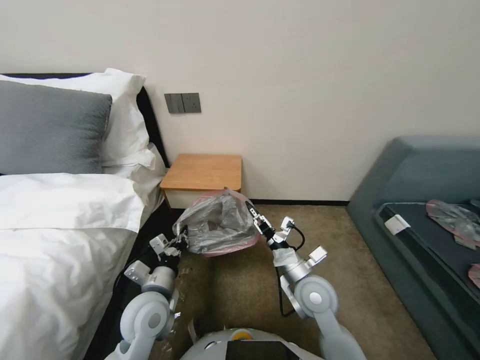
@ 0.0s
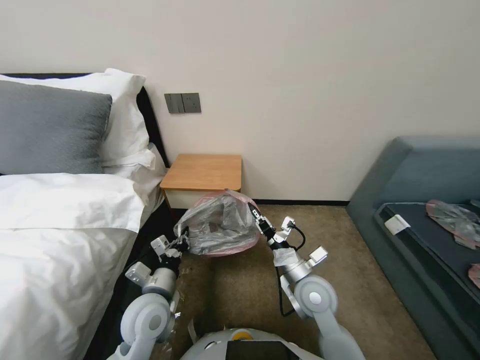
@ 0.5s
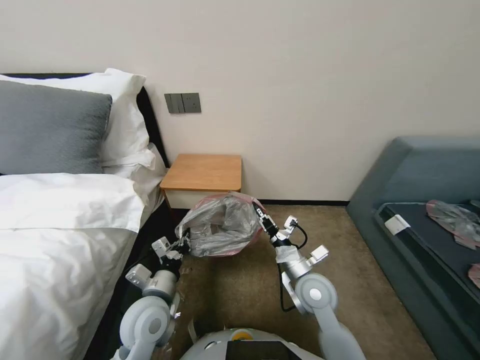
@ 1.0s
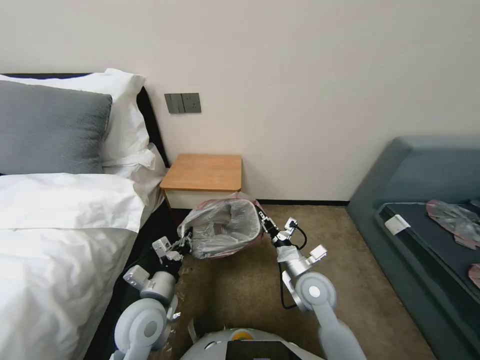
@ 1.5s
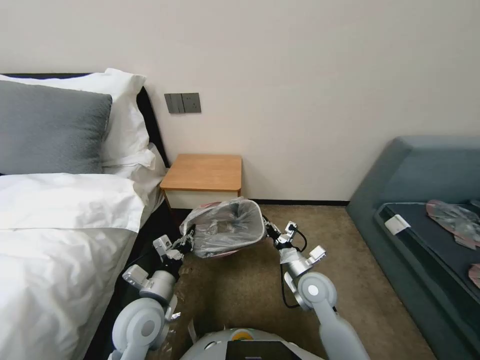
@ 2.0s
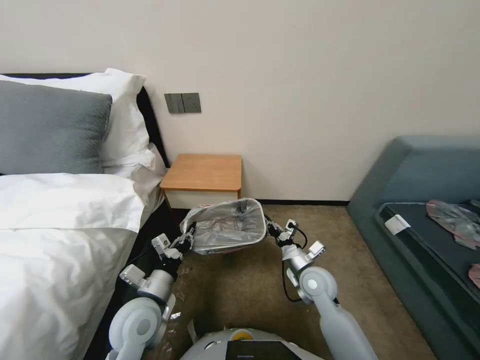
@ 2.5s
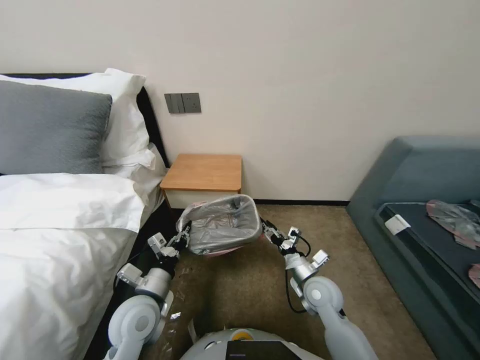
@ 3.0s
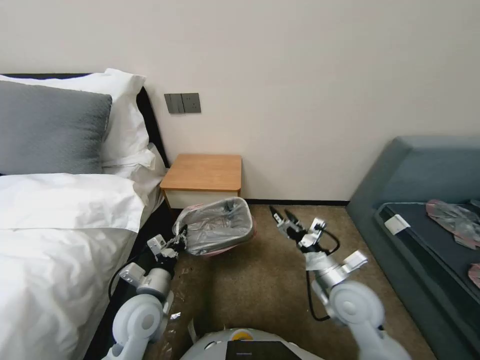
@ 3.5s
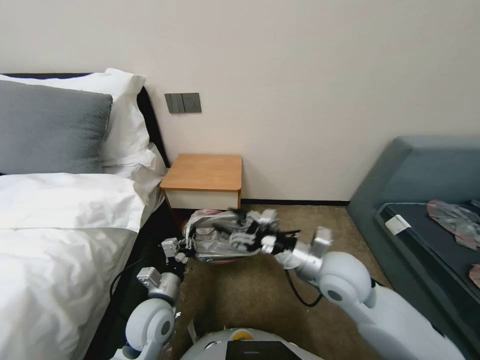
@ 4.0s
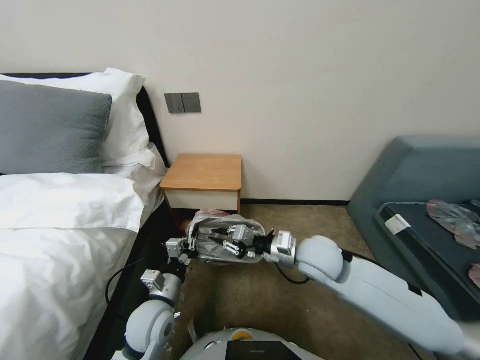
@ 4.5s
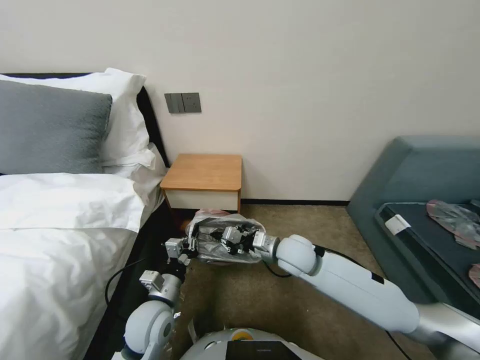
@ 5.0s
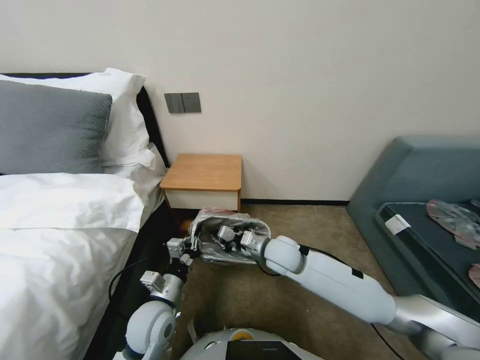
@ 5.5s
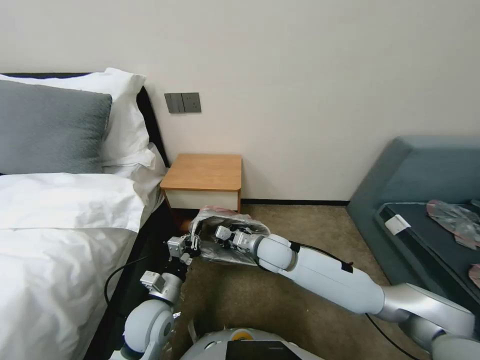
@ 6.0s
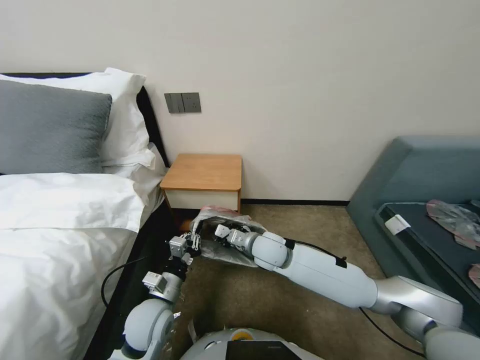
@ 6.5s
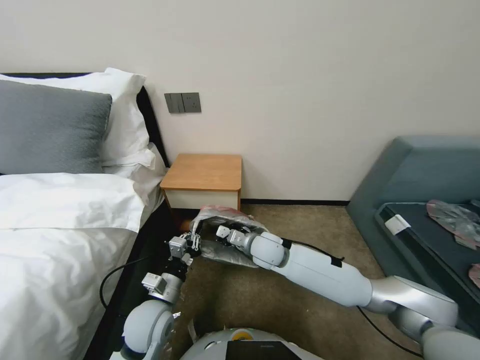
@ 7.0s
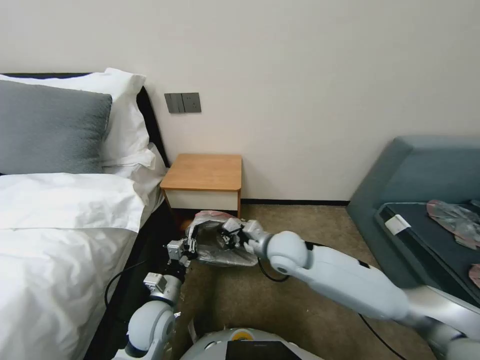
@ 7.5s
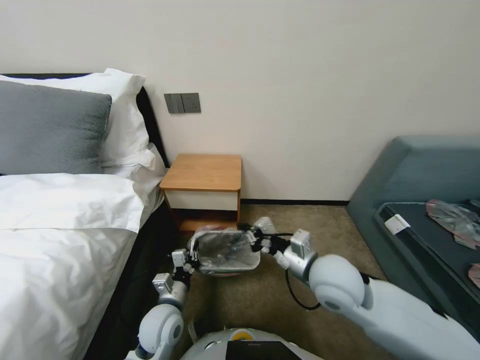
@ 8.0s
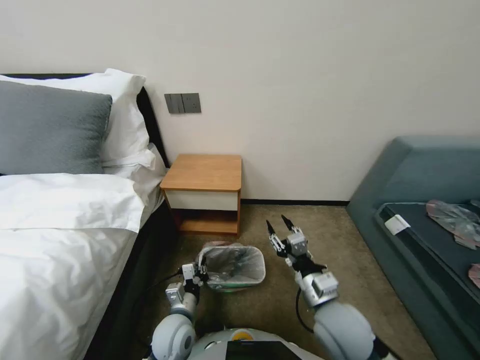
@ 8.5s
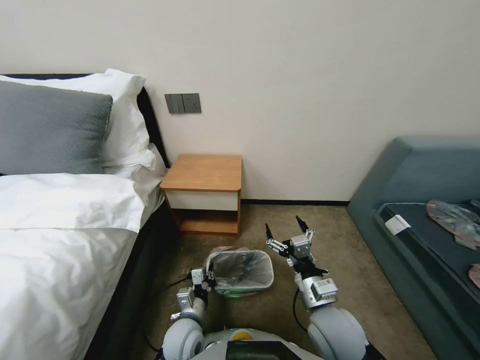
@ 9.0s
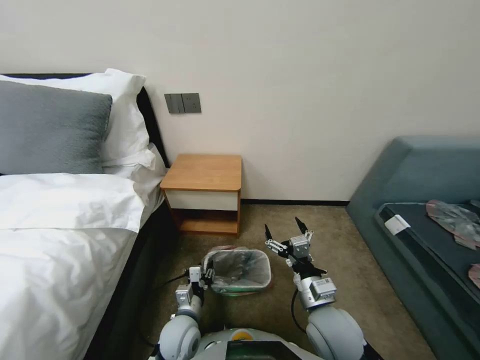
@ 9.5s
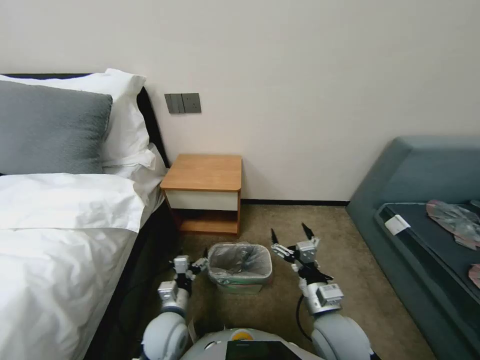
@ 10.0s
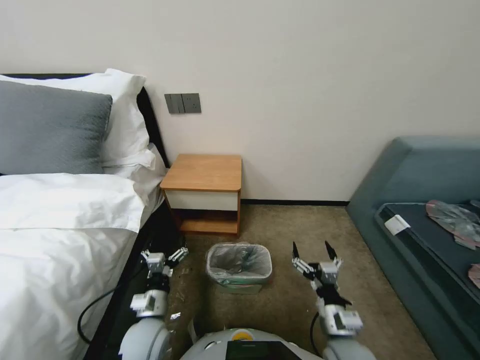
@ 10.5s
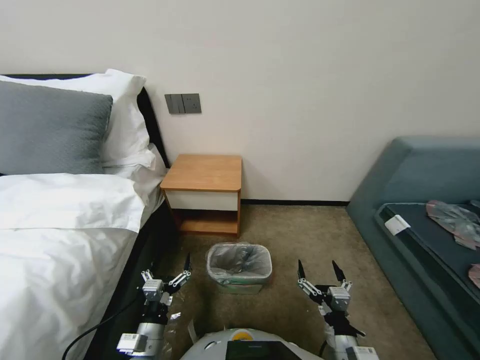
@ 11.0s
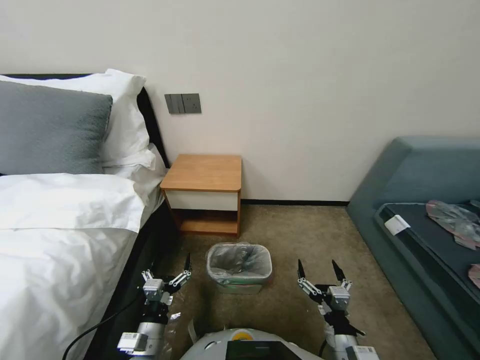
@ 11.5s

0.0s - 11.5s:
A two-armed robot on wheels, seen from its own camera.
Task of the whole recording: Pick up the garbage bag from the table and place it over the trash can.
0.0s - 2.0s: The right gripper changes place by approximately 5 cm, and closes its fingers.
2.0s - 4.0s: The right gripper is displaced upward by about 15 cm, and opens up.
4.0s - 6.0s: The right gripper heads to the left, forward and downward, covering roughly 15 cm, and closes its fingers.
6.0s - 7.5s: The grippers stay close to where they were, moving slightly.
7.5s - 9.5s: The right gripper is displaced backward and to the right by roughly 20 cm, and opens its fingers. The left gripper moves downward and to the right, approximately 10 cm.
9.5s - 11.5s: The left gripper travels backward and to the left by some 10 cm, and opens. Meanwhile the right gripper shifts some 10 cm backward and downward.

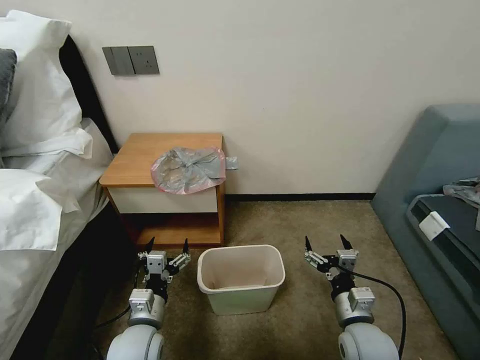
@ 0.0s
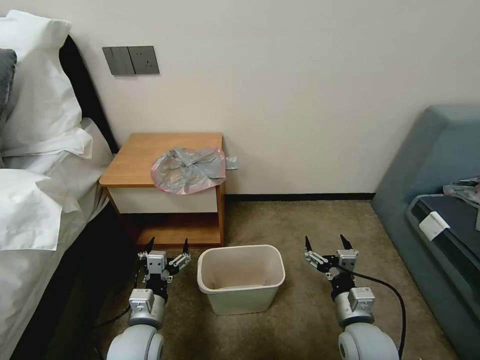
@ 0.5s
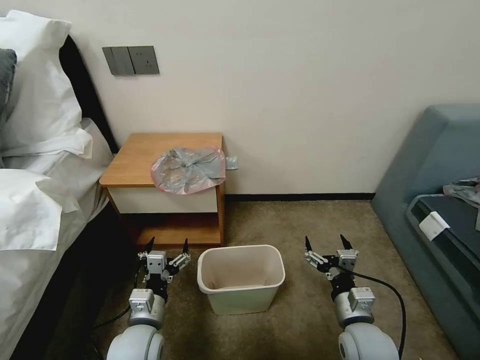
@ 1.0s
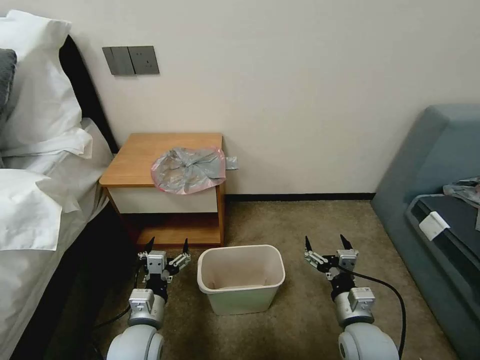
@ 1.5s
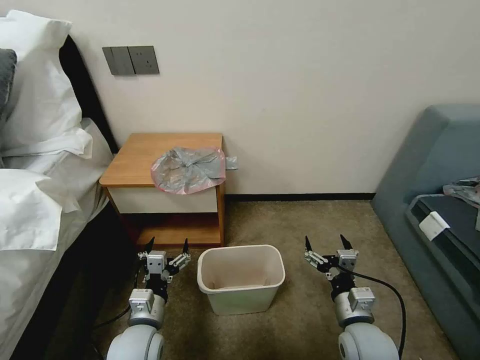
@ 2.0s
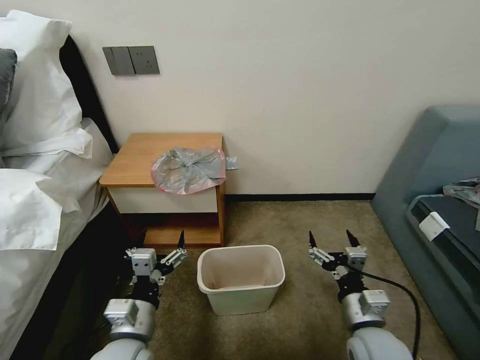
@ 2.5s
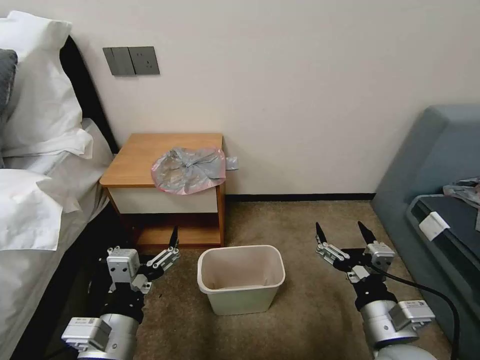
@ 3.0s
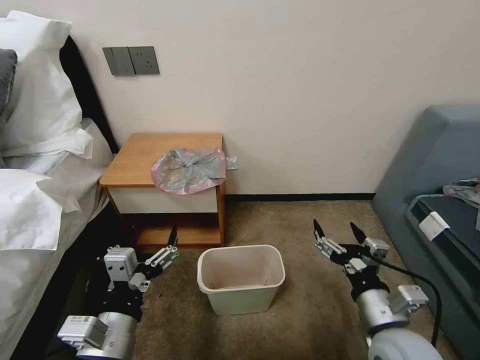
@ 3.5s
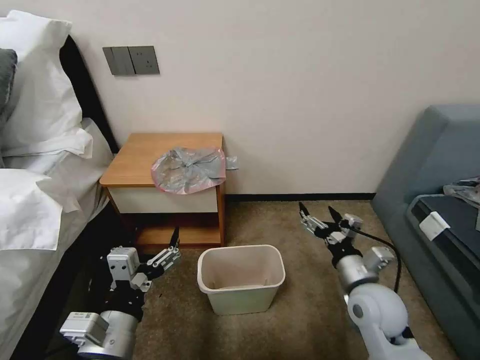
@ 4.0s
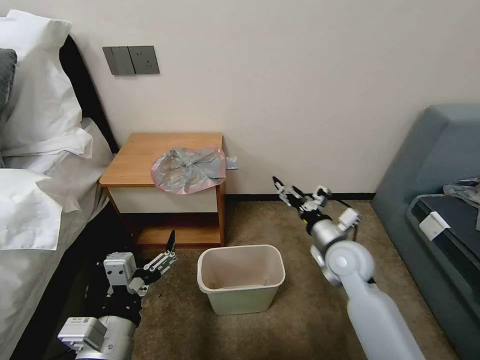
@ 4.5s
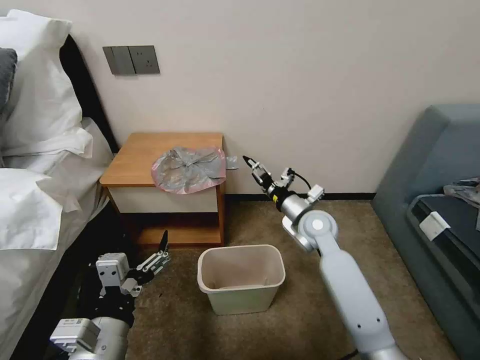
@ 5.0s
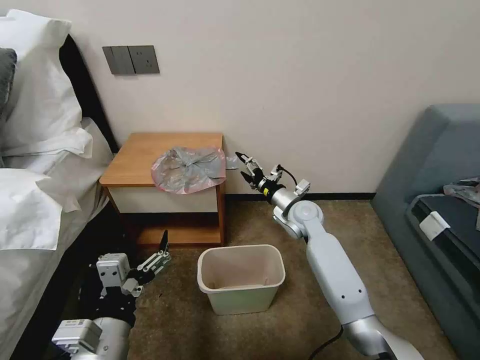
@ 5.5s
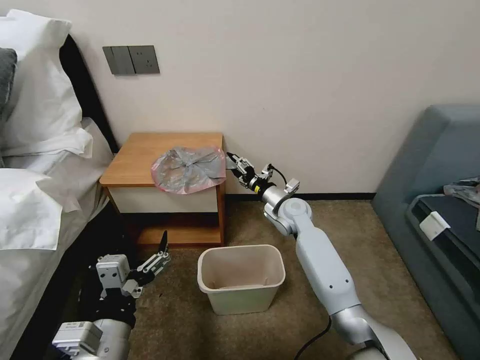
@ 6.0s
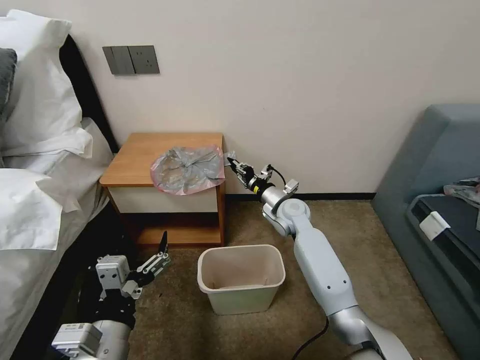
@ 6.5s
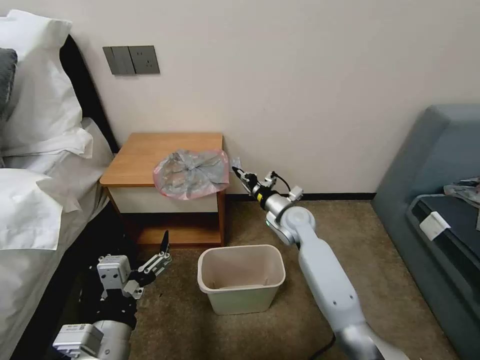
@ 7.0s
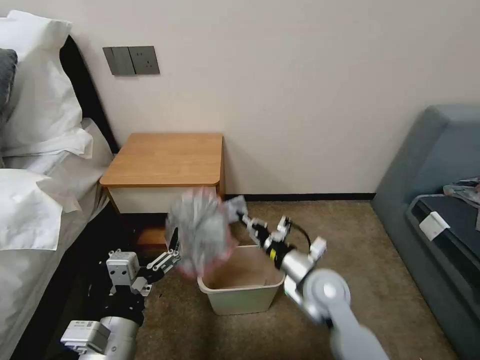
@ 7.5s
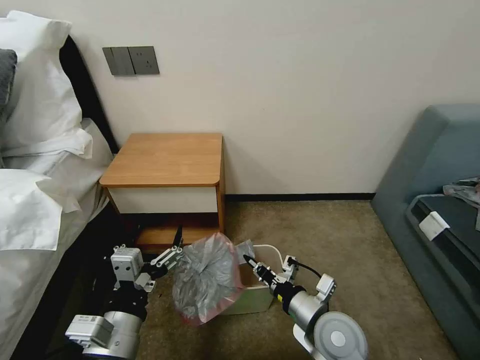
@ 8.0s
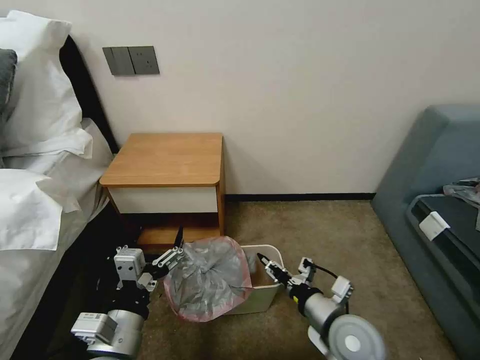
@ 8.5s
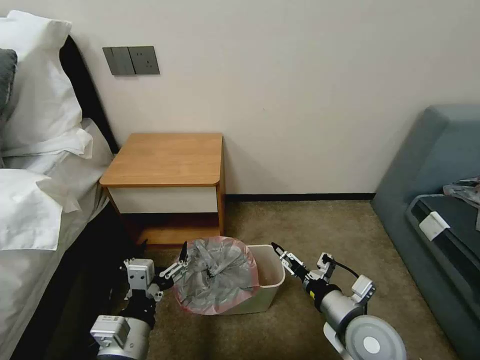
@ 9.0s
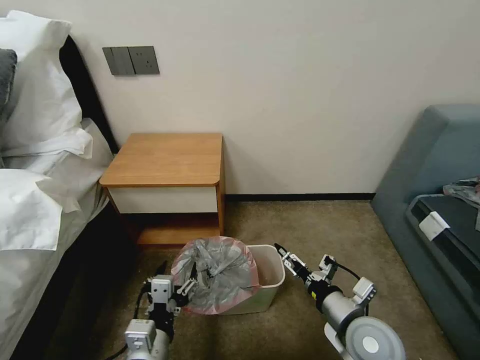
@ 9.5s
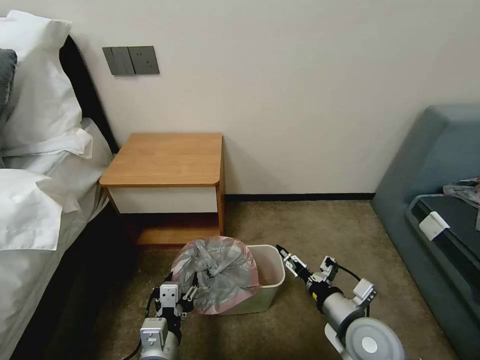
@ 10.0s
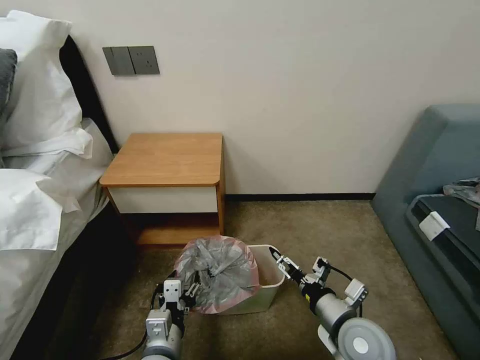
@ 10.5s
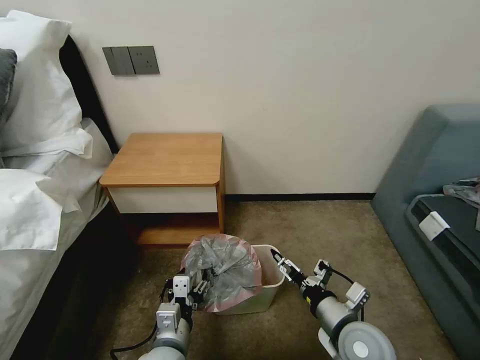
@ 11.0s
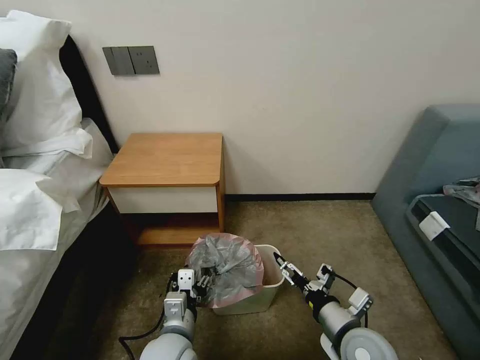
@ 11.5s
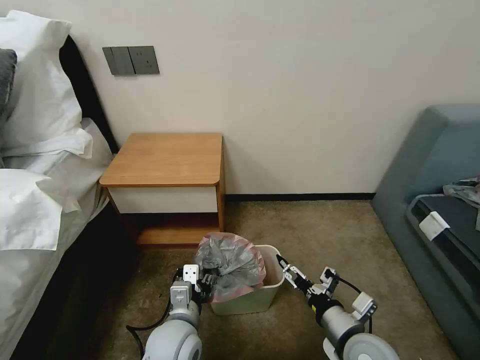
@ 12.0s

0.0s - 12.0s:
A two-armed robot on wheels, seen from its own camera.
Task of the whole recording: Pick up the garbage bag from the table and place it over the trash can.
2.0s - 4.0s: The right gripper goes roughly 10 cm upward and forward, while the left gripper heads upward and backward, covering approximately 15 cm.
4.0s - 6.0s: The right gripper goes some 25 cm forward and to the left.
6.0s - 8.0s: The right gripper is displaced backward by approximately 30 cm, and closes.
8.0s - 10.0s: The right gripper heads to the right, covering about 5 cm, and opens its fingers. The left gripper travels downward by about 10 cm.
10.0s - 12.0s: The left gripper heads forward, covering about 5 cm.

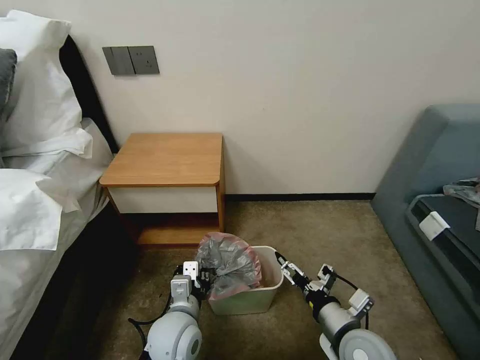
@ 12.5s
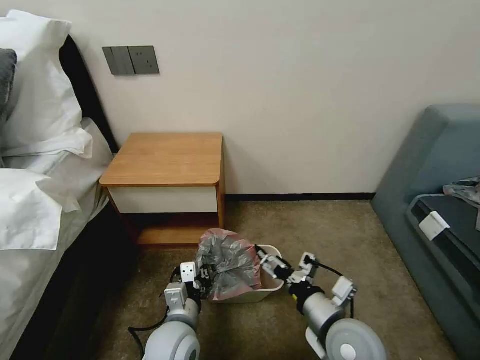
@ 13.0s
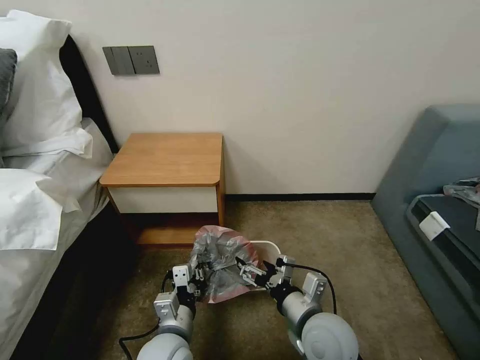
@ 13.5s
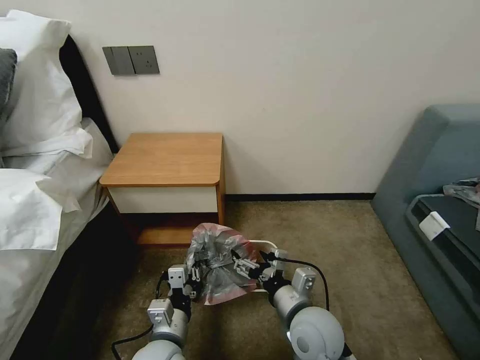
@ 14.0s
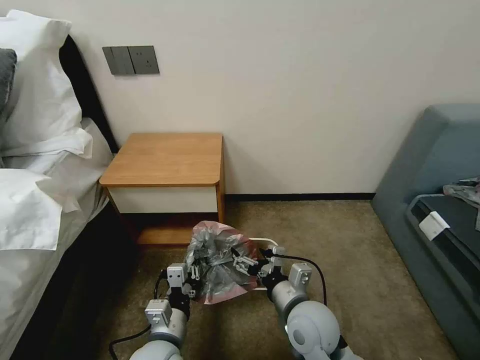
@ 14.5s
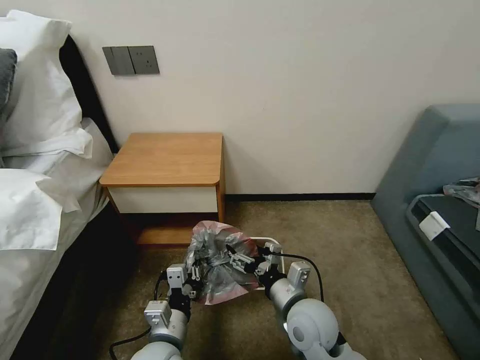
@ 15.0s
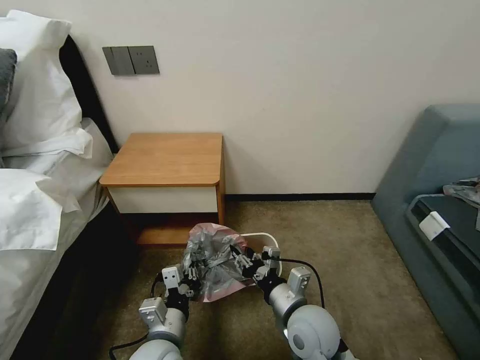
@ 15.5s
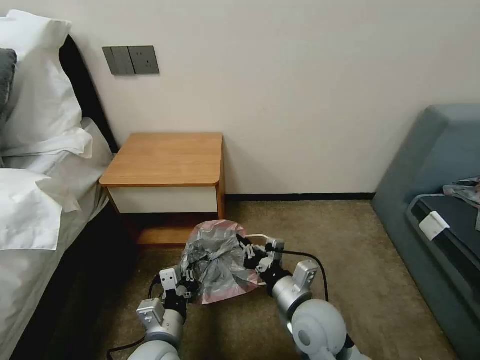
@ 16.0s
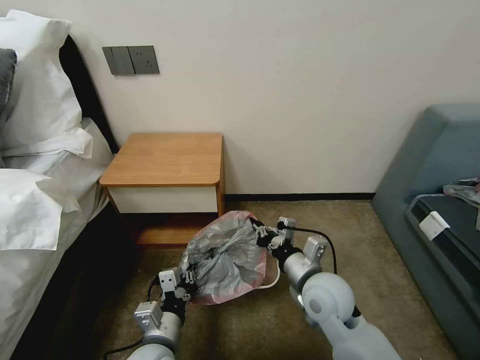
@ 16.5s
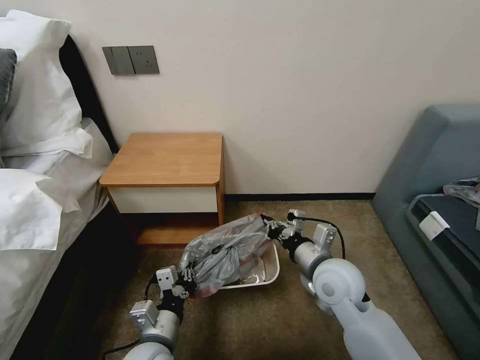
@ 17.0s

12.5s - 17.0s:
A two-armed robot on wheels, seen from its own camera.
Task of the whole recording: Pick up the garbage bag from the table and place it over the trash can.
12.5s - 14.5s: The right gripper heads to the left, covering about 10 cm; the left gripper changes place by about 5 cm.
14.5s - 17.0s: The right gripper shifts about 10 cm forward and to the right, and closes.
